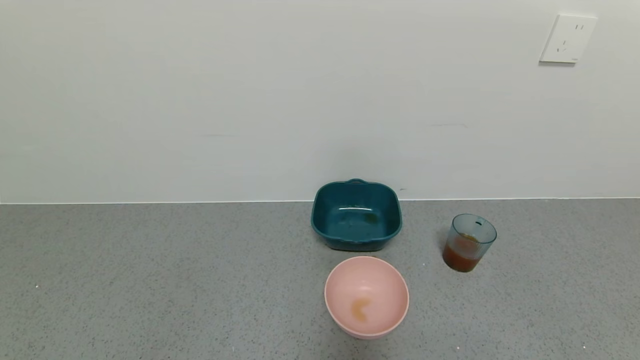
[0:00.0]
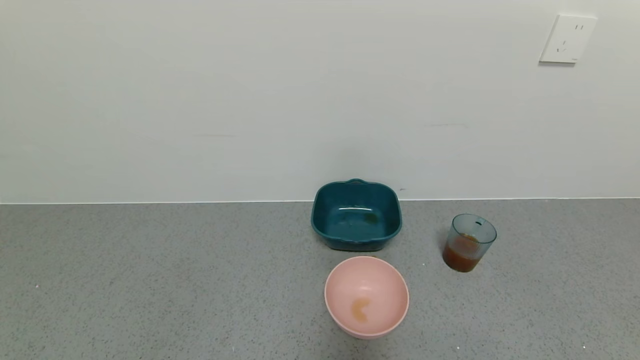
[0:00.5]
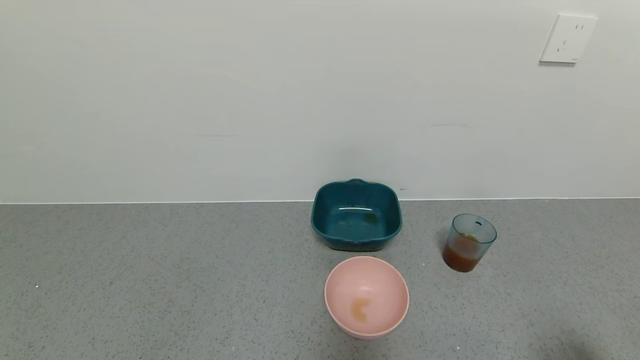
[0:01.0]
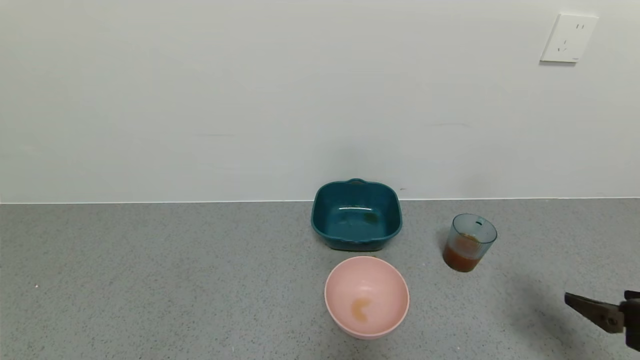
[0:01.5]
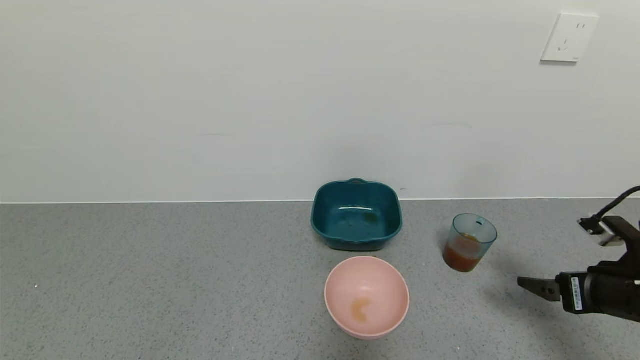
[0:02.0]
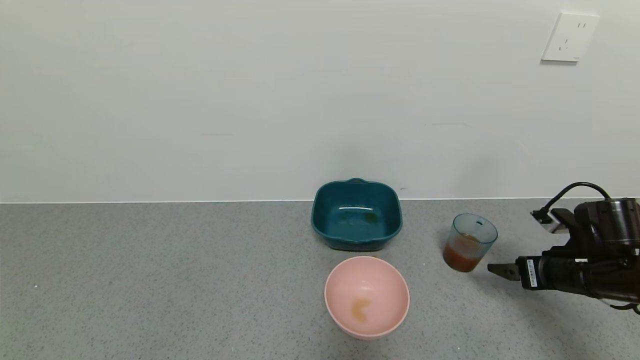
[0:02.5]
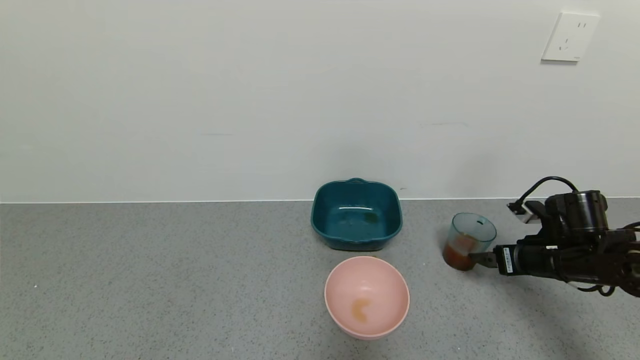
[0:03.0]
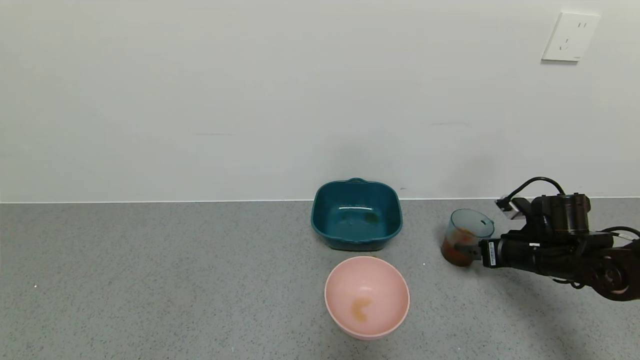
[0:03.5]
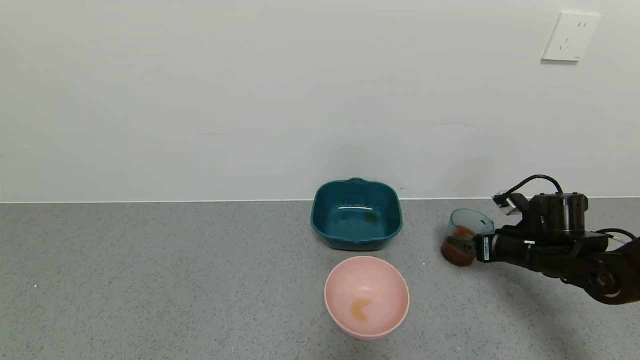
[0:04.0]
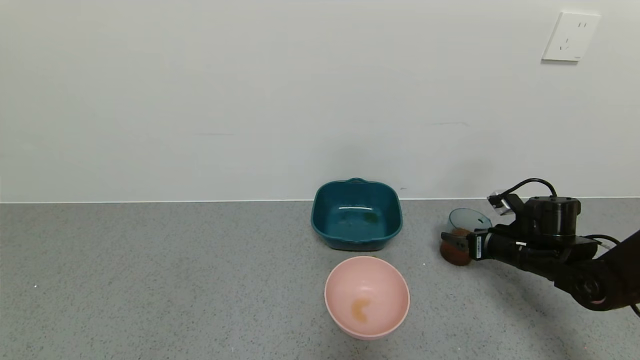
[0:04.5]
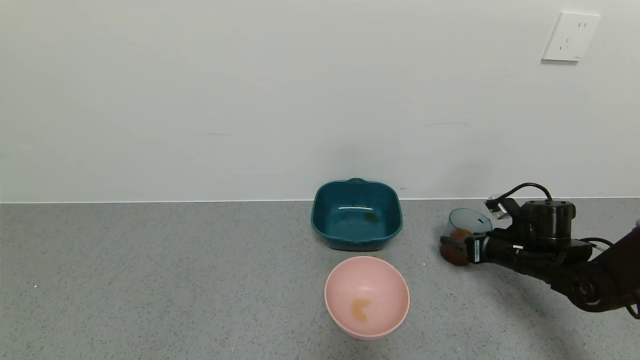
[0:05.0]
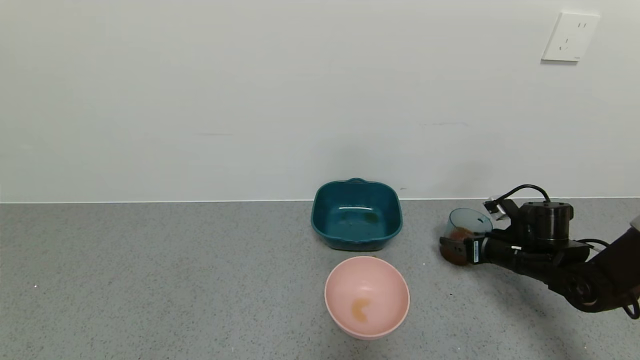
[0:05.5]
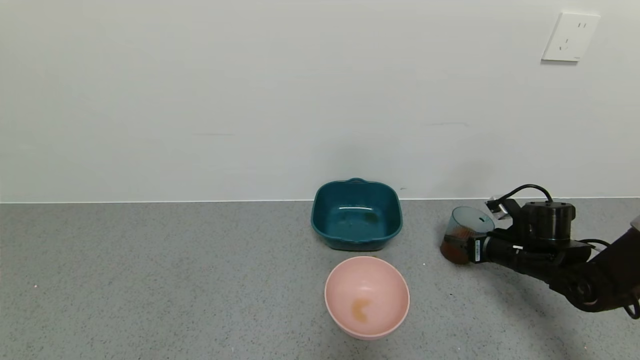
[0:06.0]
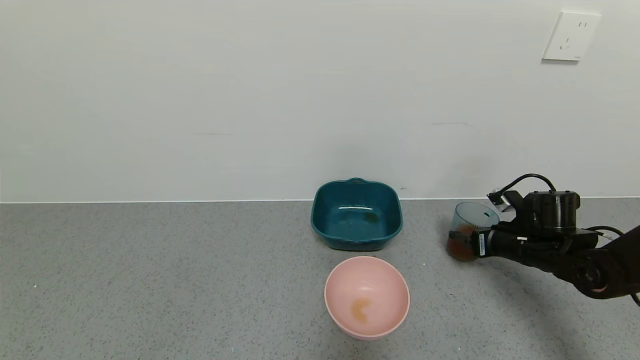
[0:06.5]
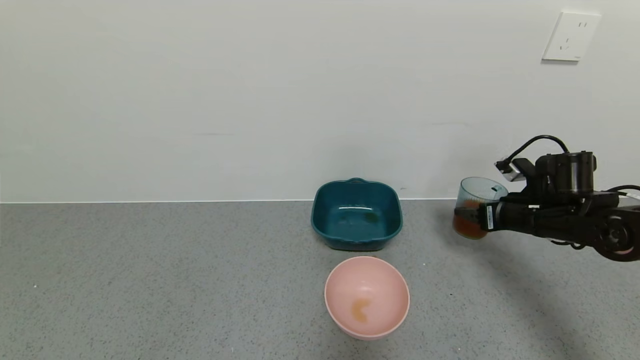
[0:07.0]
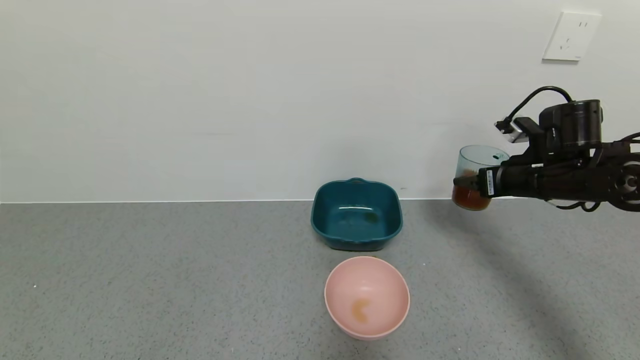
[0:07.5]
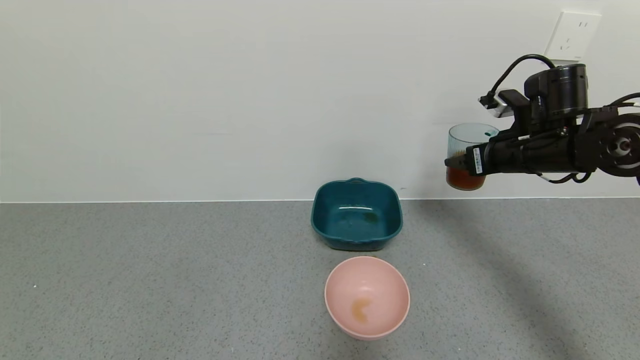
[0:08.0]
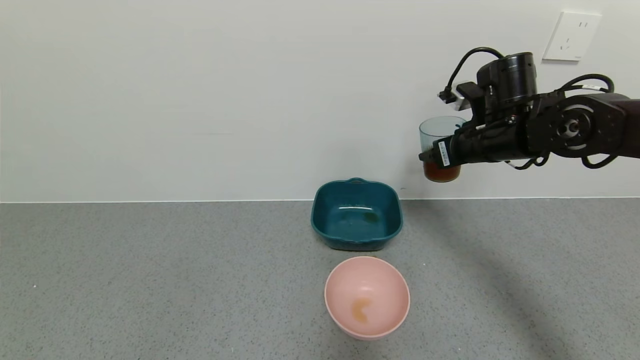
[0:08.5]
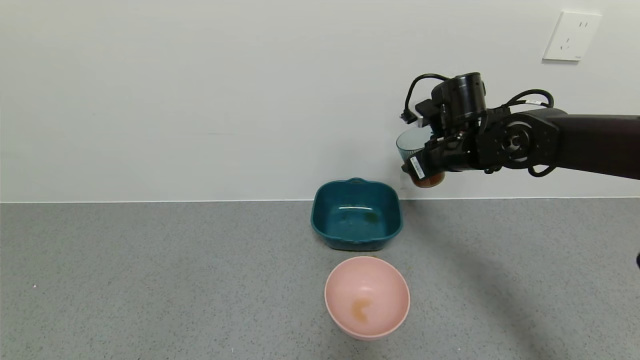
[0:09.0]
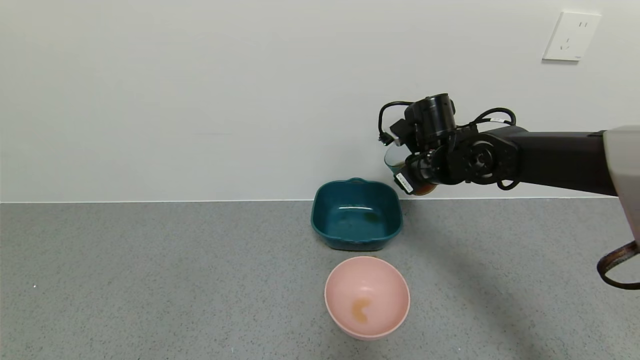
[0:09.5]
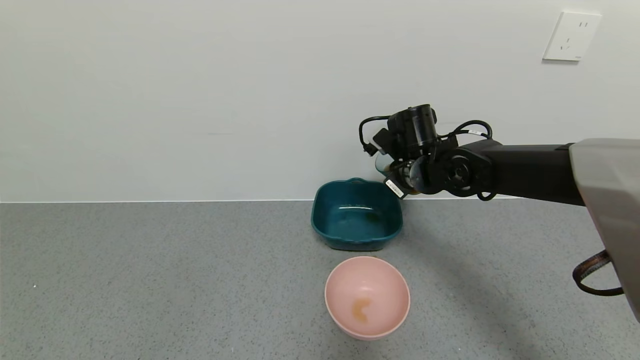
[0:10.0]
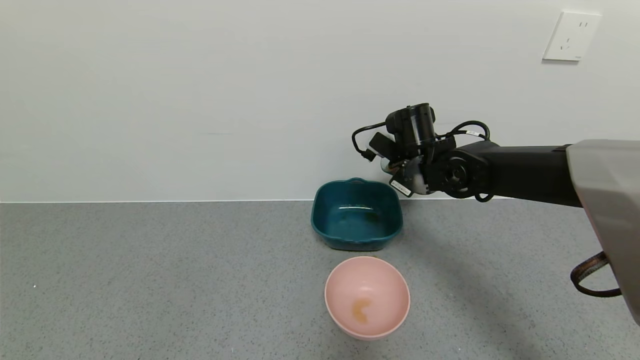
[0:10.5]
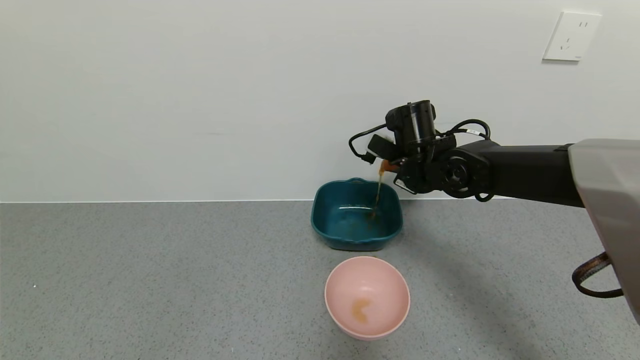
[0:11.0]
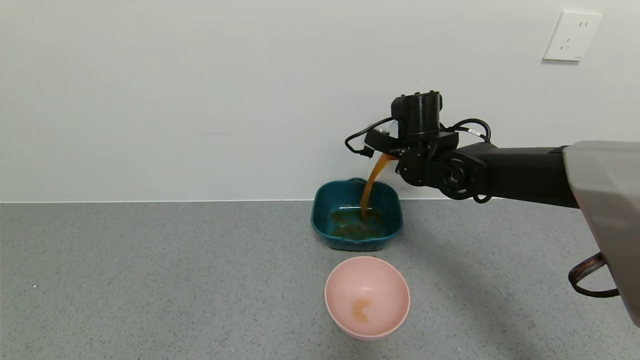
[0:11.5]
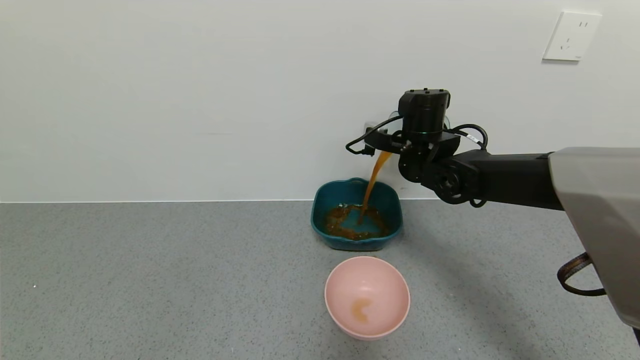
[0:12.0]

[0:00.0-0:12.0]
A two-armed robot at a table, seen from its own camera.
Task of the whole recording: use a gripper to pick up the cup and pour the liquid into a bowl or tray.
Step, 0:00.0 to 0:06.5: Grasp the glass of black tea with the right gripper.
0:00.0 to 0:02.0: The right gripper moves forward, approximately 20 cm.
0:02.0 to 0:04.0: The right gripper travels forward and downward by roughly 15 cm.
0:04.0 to 0:06.0: The right gripper closes its fingers.
0:06.0 to 0:08.0: The right gripper heads upward, covering some 20 cm.
0:08.0 to 0:10.0: The right gripper is displaced to the left by some 15 cm.

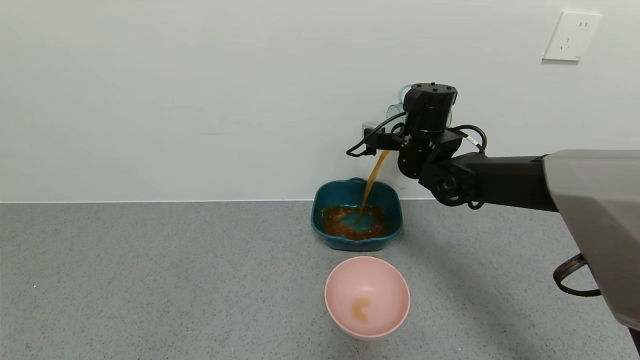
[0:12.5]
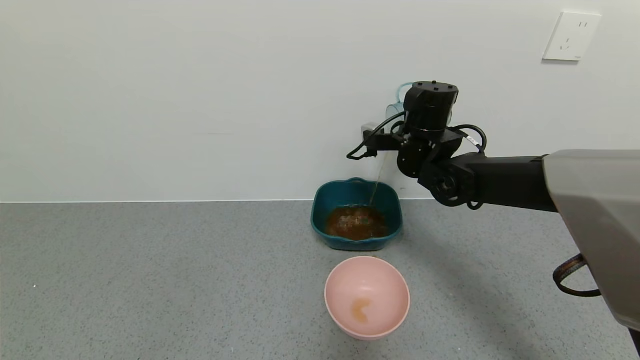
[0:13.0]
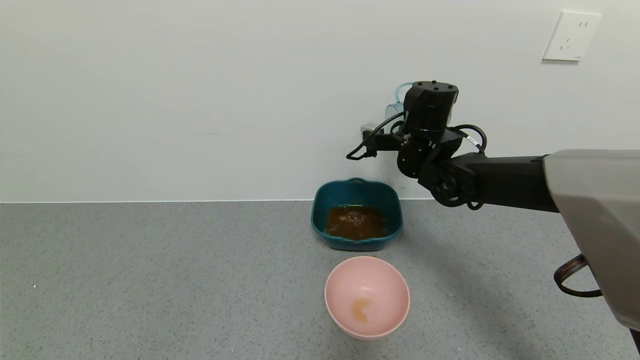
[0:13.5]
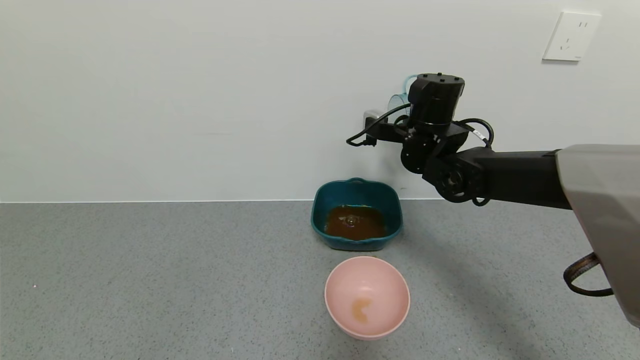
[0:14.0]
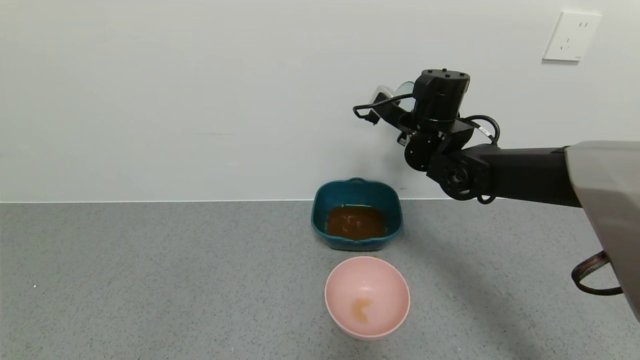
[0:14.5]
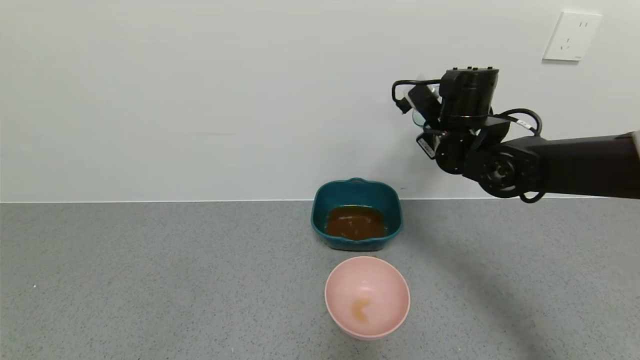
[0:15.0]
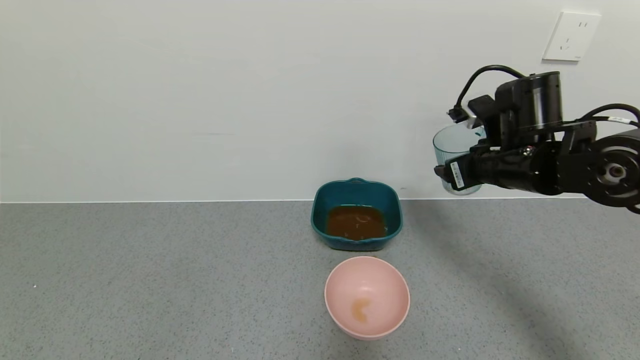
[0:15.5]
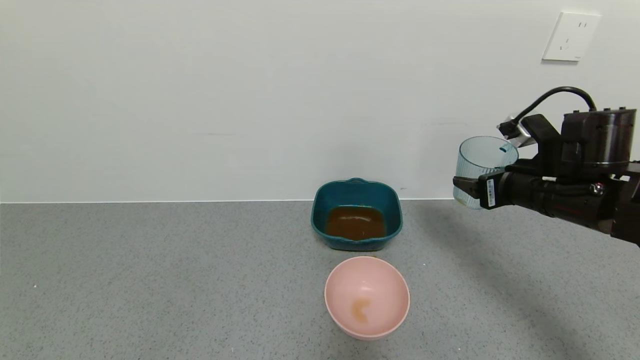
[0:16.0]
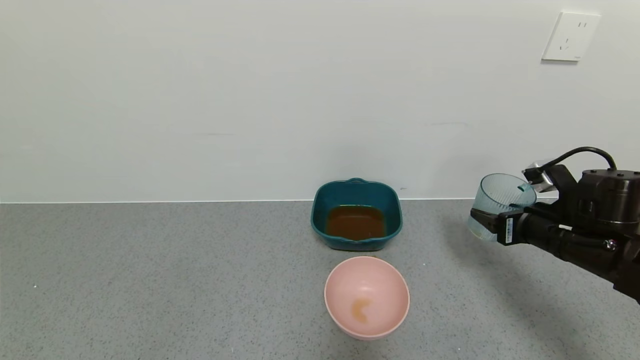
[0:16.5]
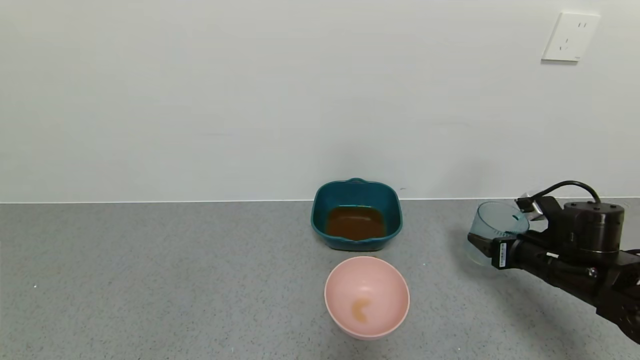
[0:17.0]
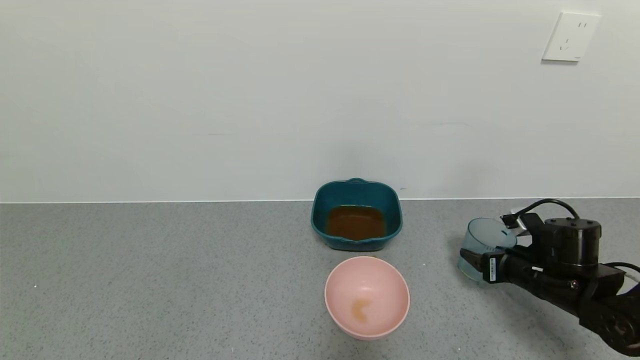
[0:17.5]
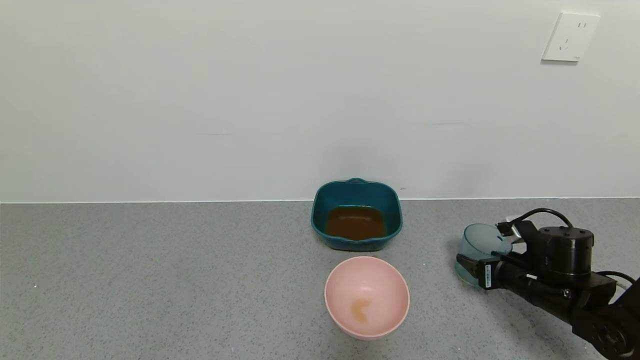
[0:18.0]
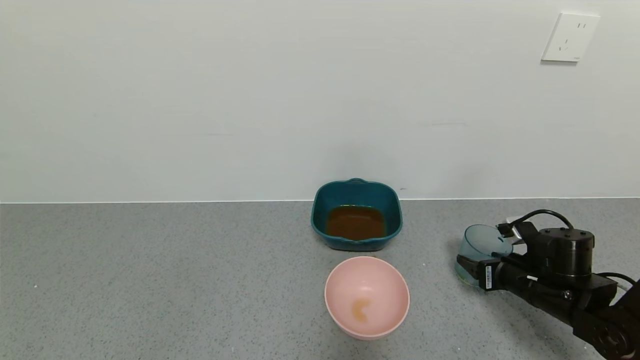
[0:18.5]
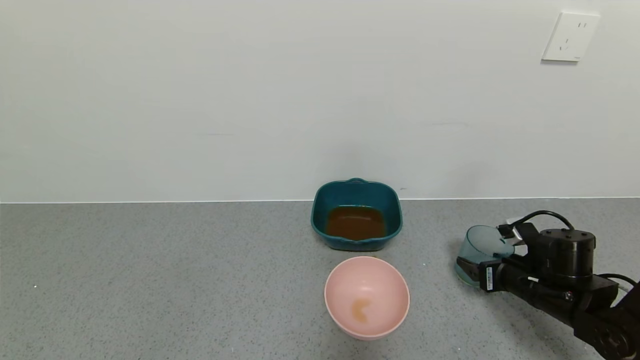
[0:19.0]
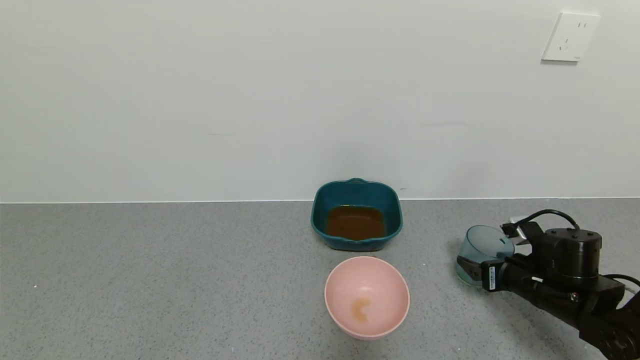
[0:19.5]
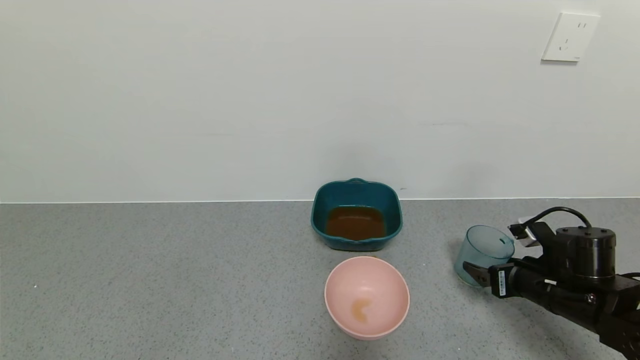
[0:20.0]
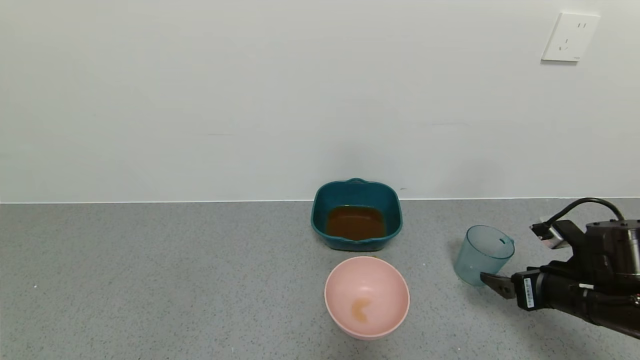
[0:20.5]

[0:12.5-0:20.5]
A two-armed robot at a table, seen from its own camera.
Task of the whole recording: use a gripper to pick up the cup and pour the liquid into a bowl or tray.
Step, 0:14.5 to 0:20.0: Place the glass cup with the right gripper.
0:14.5 to 0:16.5: The right gripper heads to the right, backward and downward, covering approximately 25 cm.
0:16.5 to 0:18.5: The right gripper heads downward, covering approximately 10 cm.
0:18.5 to 0:20.5: The right gripper heads backward and upward, covering some 10 cm, and opens up.
